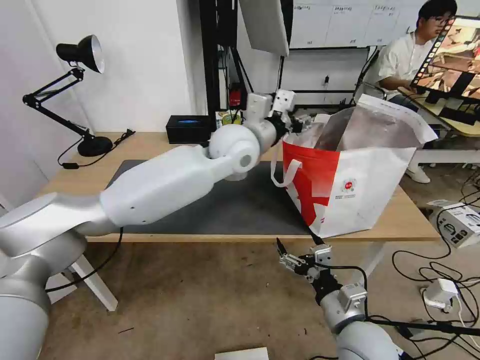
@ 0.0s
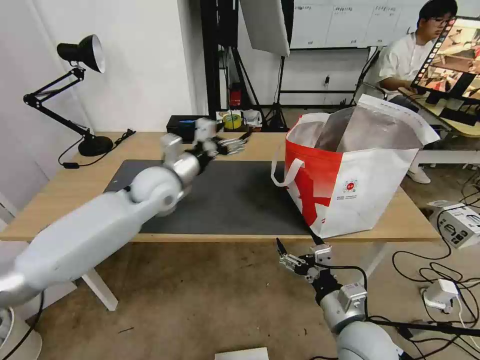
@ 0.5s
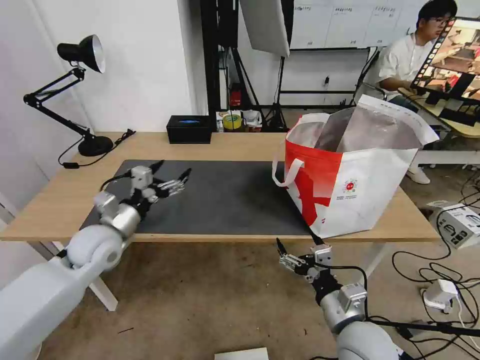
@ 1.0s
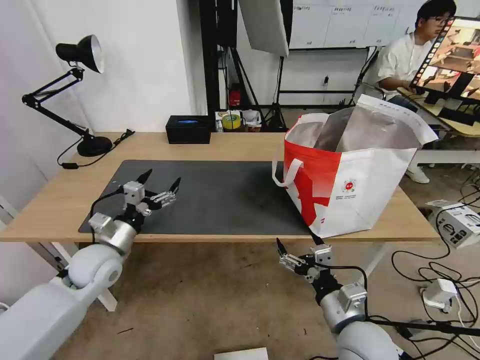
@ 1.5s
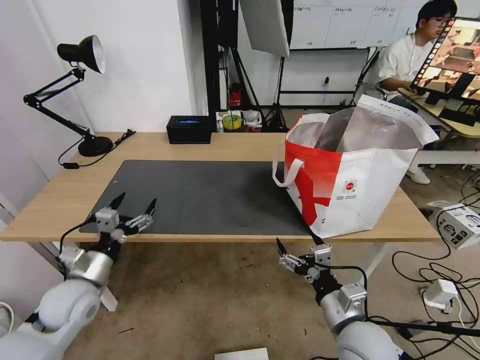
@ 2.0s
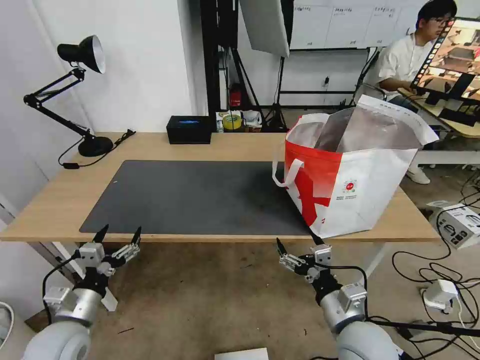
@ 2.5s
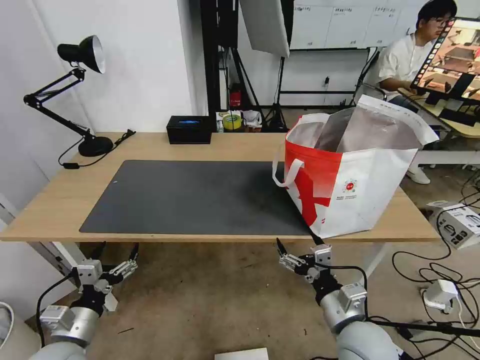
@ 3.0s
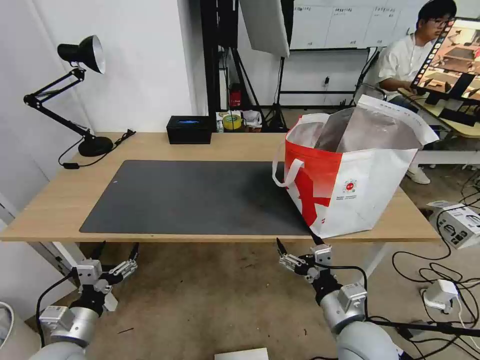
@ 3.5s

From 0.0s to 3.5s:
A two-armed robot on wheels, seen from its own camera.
Task of the whole recording: Pick up the trash from the table and place it into the takeout bag.
From 0.0s to 2.0s: The left gripper travels to the left, downward and backward by approximately 50 cm, and opens its fingers.
From 2.0s to 3.5s: The left gripper travels backward and downward by roughly 10 cm.

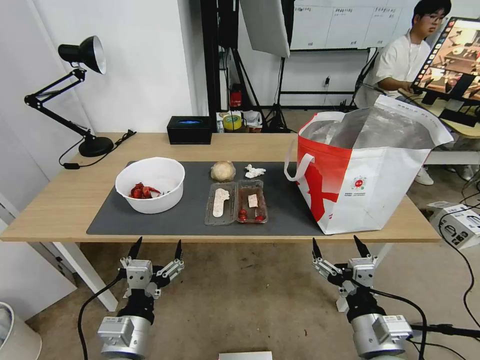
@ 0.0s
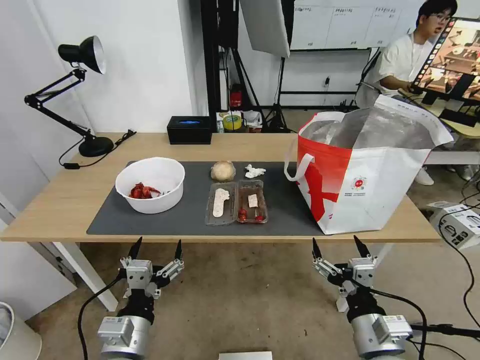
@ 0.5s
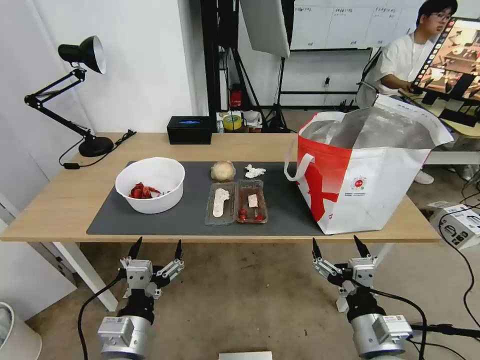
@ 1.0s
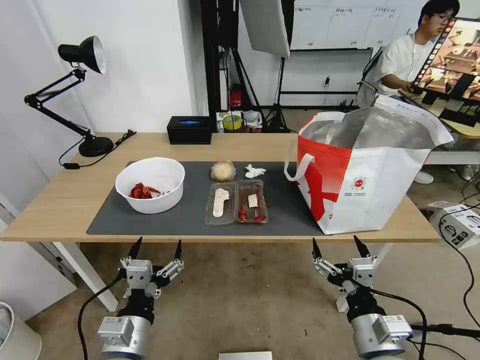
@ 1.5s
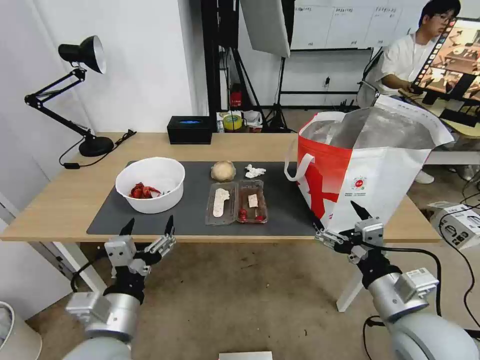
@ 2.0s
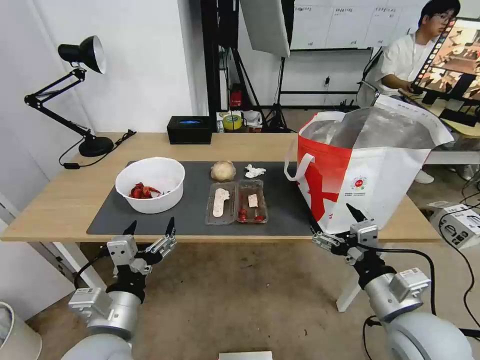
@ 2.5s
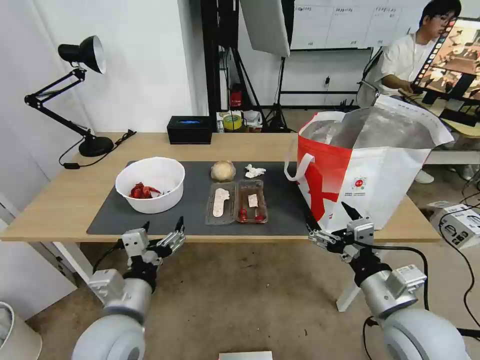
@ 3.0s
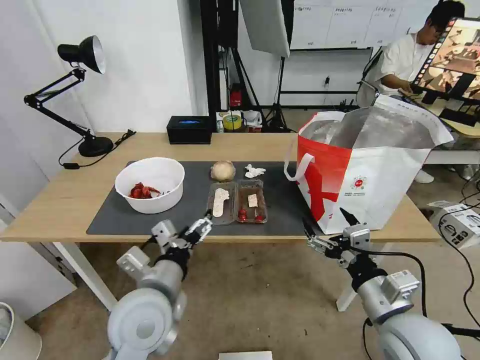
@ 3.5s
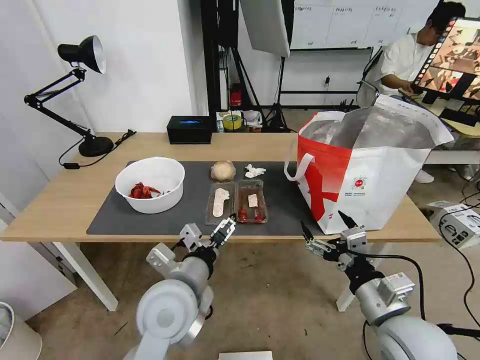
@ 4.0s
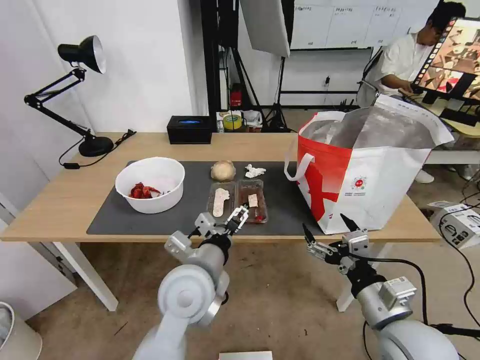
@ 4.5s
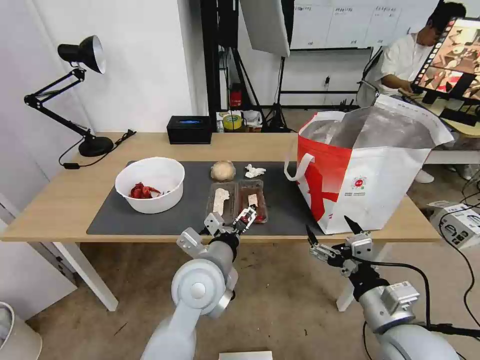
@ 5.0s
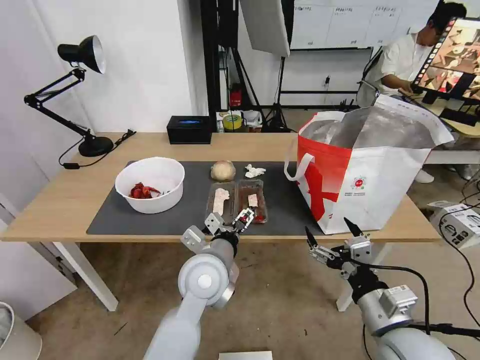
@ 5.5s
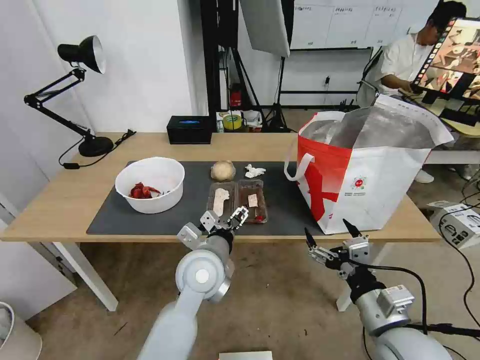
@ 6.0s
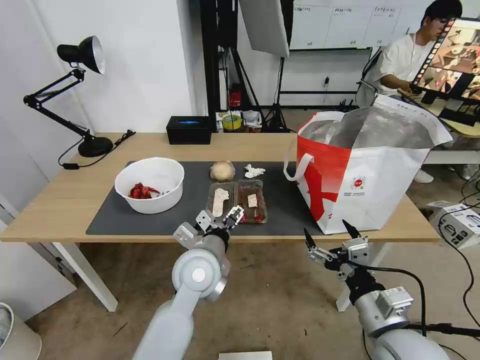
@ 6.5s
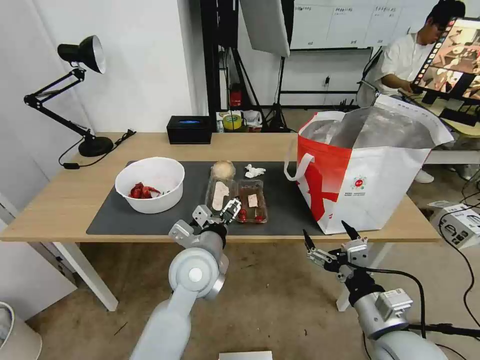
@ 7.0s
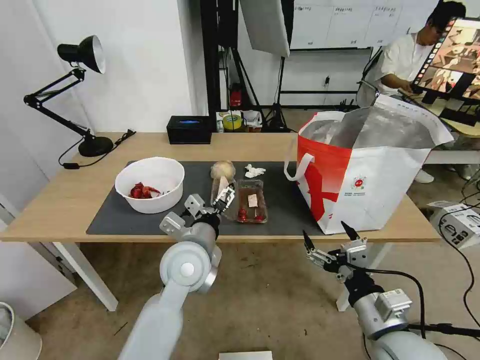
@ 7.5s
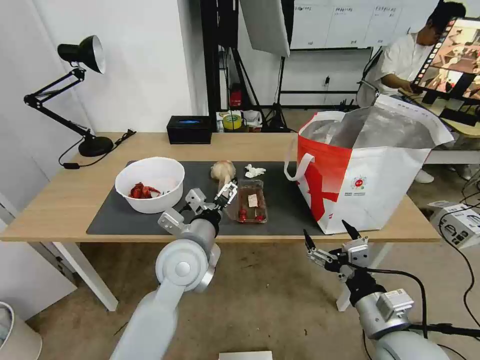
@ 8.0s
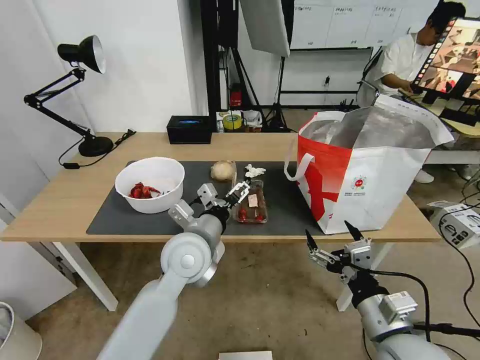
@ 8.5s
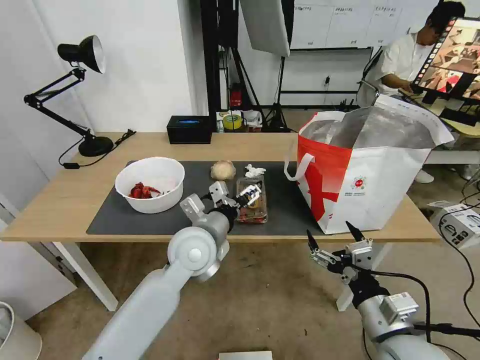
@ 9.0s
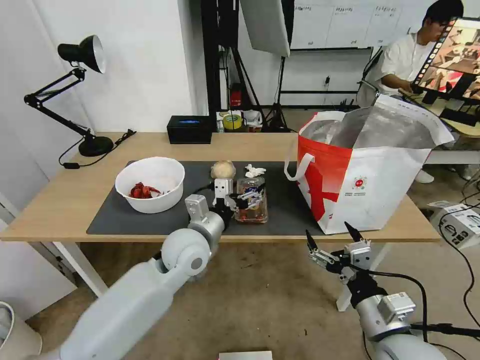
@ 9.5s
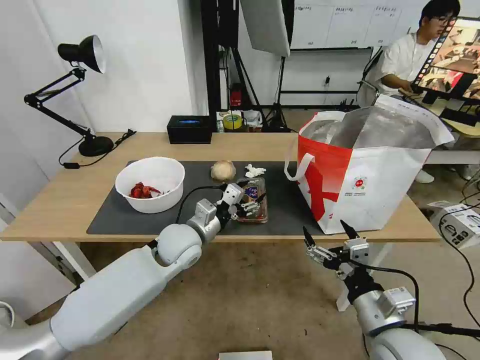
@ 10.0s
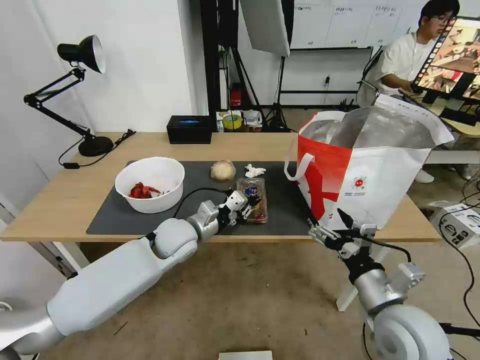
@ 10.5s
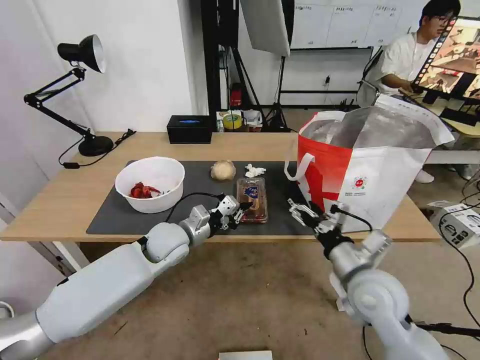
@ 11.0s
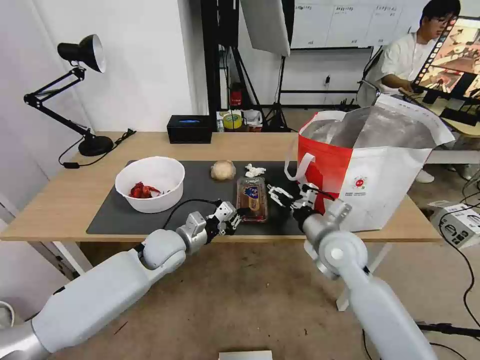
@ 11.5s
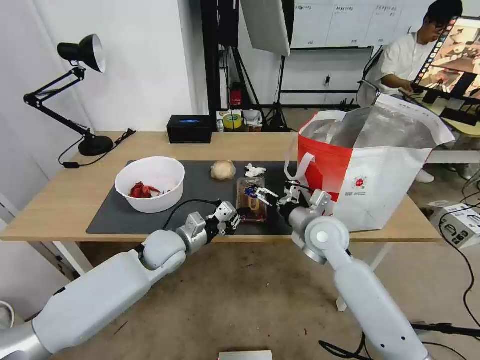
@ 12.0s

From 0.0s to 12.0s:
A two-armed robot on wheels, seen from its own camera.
Task of the whole recording: Pick up the trash from the table and place it into the takeout bag.
From 2.0s to 4.0s: The left gripper moves to the right and forward, approximately 10 cm.
From 4.0s to 6.0s: The left gripper goes roughly 10 cm forward.
From 6.0s to 8.0s: The grippers make only small movements.
From 8.0s to 10.0s: The left gripper moves forward and downward, approximately 10 cm, and closes.
From 10.0s to 12.0s: The right gripper heads forward, covering approximately 25 cm. Meanwhile the left gripper ends up approximately 5 cm from where it was, and closes its fingers.

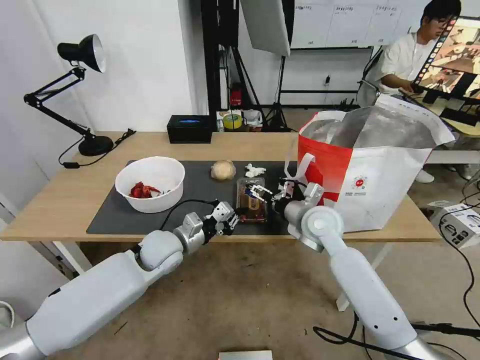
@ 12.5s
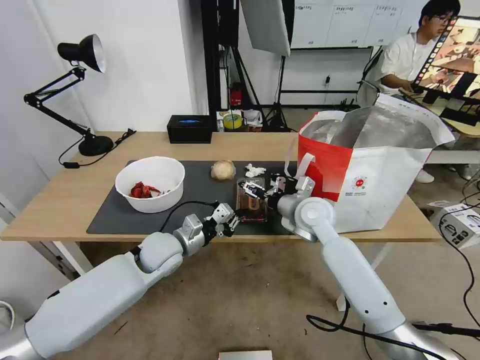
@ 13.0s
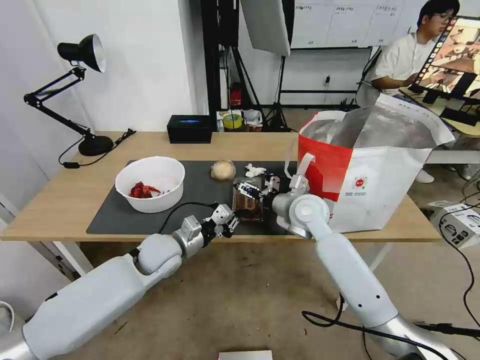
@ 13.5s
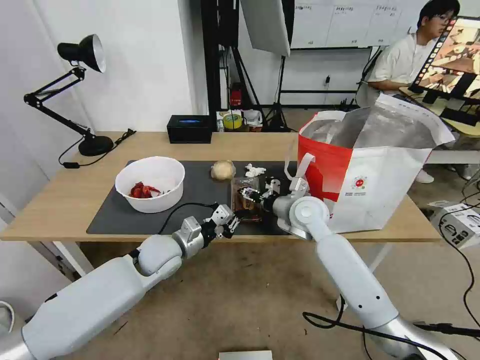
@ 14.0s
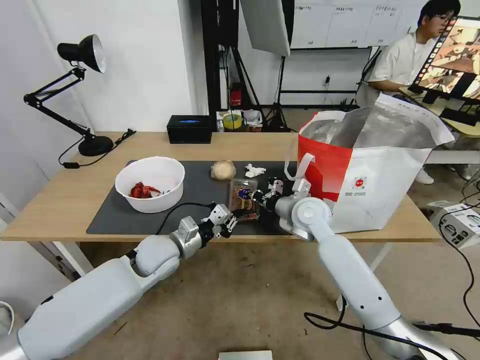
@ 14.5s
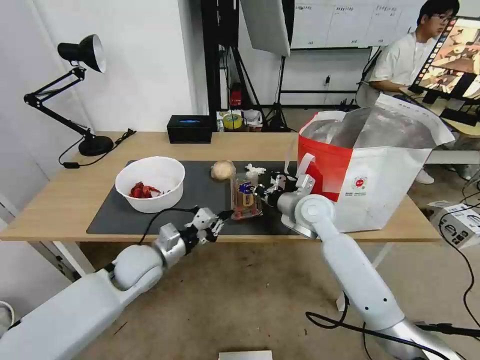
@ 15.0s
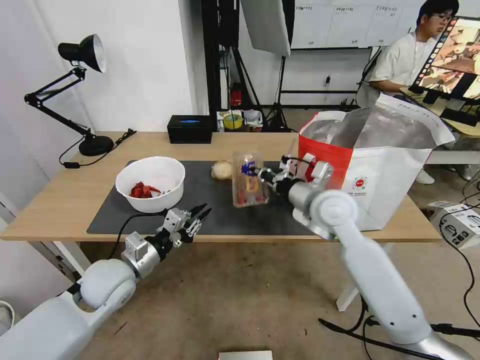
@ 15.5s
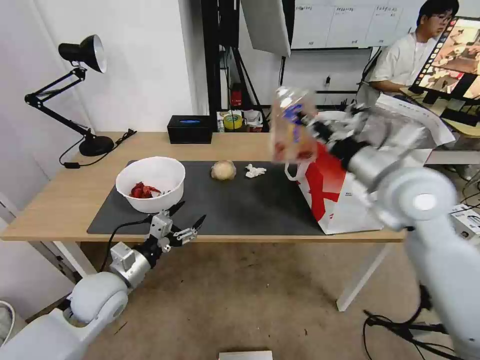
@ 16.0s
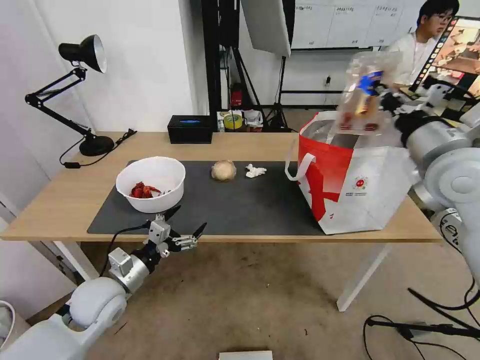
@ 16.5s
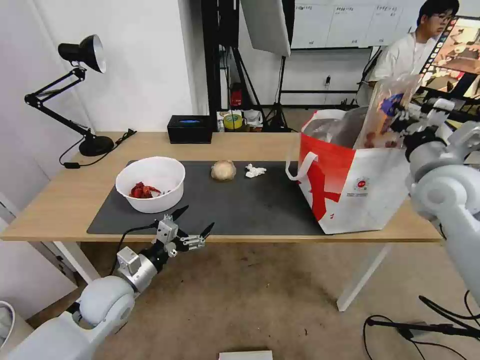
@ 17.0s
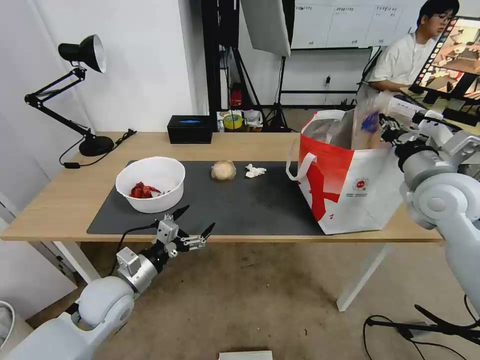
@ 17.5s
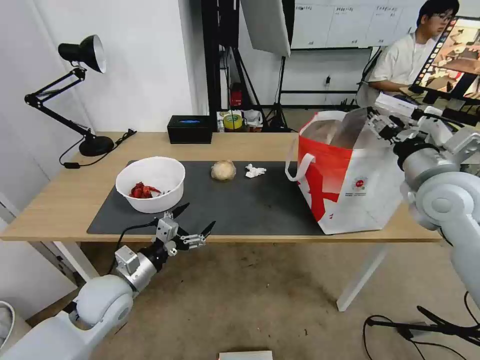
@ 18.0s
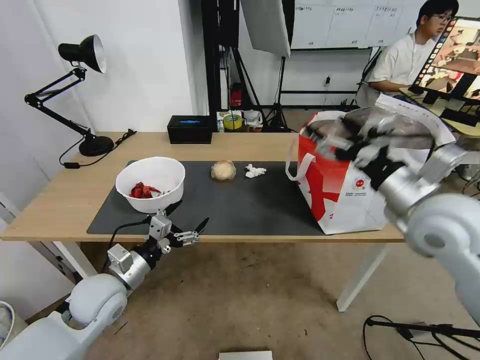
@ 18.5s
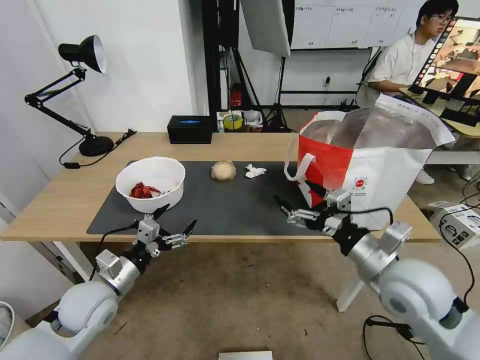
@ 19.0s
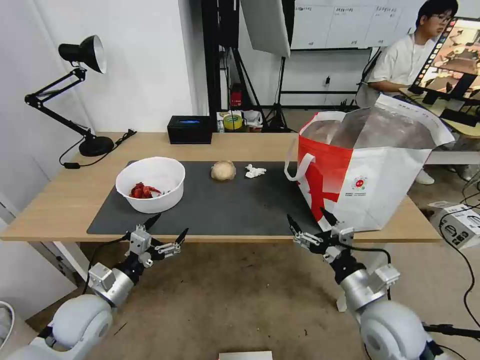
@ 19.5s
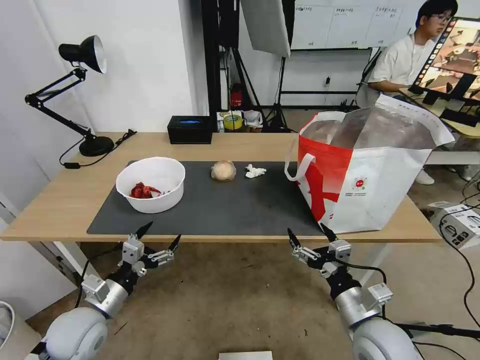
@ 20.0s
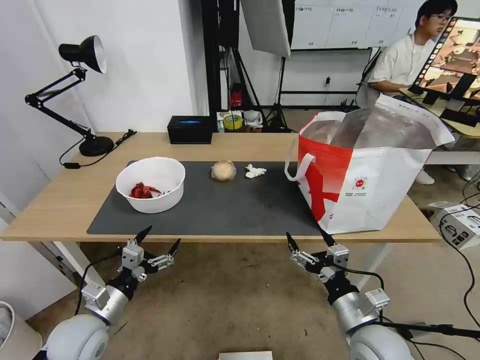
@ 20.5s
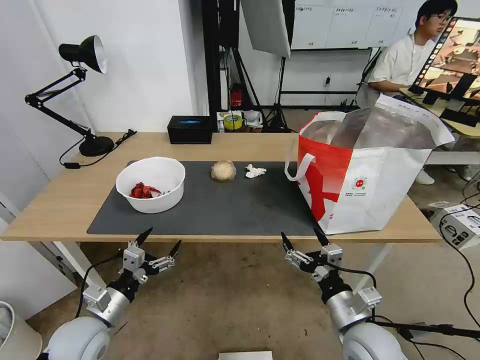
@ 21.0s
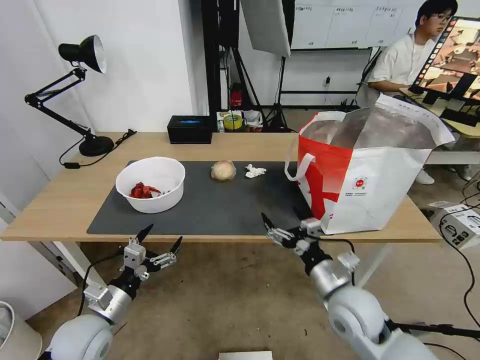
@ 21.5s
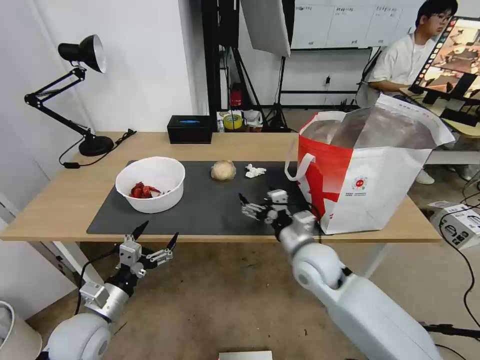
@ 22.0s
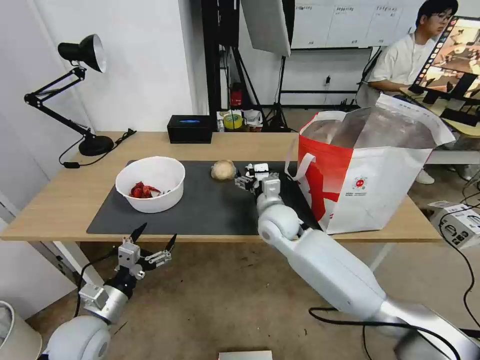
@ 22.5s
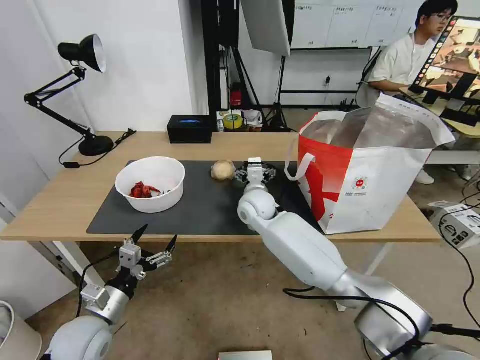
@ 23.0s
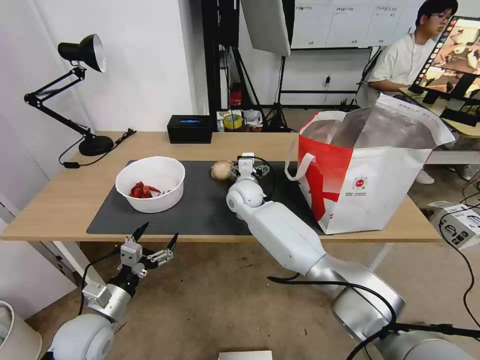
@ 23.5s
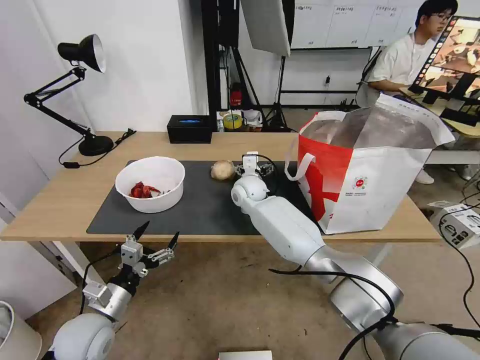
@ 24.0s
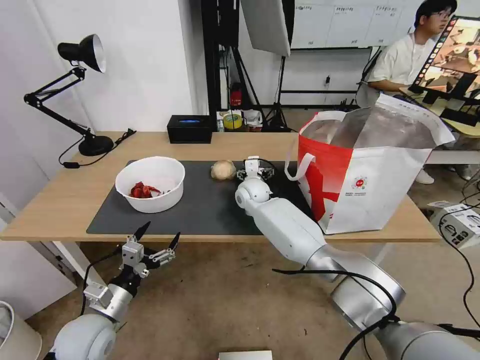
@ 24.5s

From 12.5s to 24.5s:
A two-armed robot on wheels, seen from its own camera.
Task of the whole recording: Pick up the trash from the table and place it into the takeout bag.
From 12.5s to 14.5s: The right gripper closes up.
From 14.5s to 16.5s: The left gripper goes some 15 cm backward and to the left, and opens. Meanwhile the right gripper heads upward, to the right and backward, covering some 30 cm.
From 16.5s to 18.5s: The right gripper is displaced backward and downward by about 10 cm, and opens up.
From 18.5s to 20.5s: The right gripper is displaced downward and backward by roughly 25 cm. Meanwhile the left gripper heads backward and downward, covering roughly 10 cm.
From 20.5s to 22.5s: The right gripper goes some 30 cm forward and to the left.
From 22.5s to 24.5s: The right gripper moves forward, some 15 cm.
